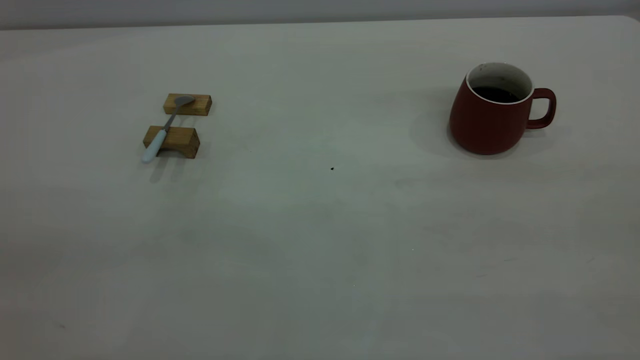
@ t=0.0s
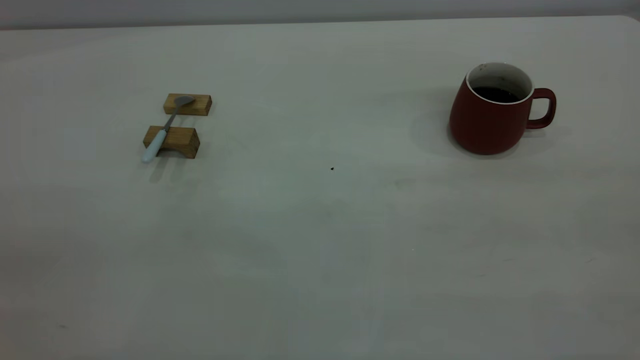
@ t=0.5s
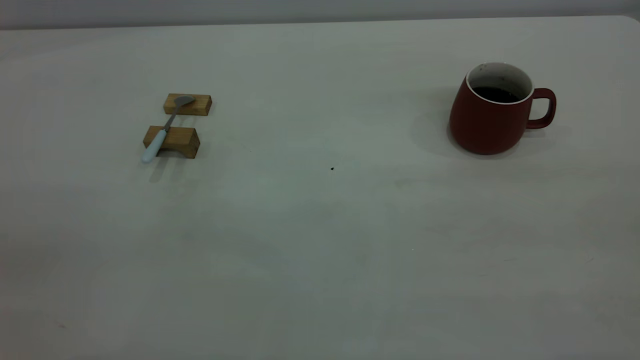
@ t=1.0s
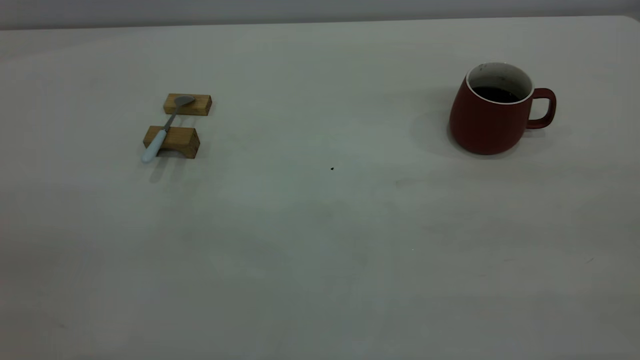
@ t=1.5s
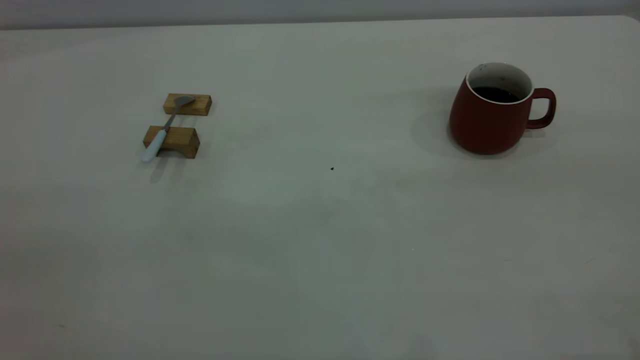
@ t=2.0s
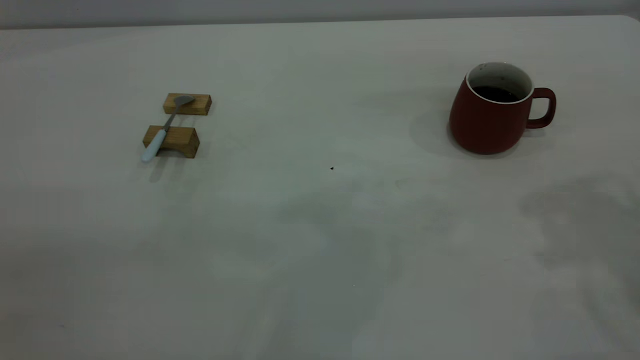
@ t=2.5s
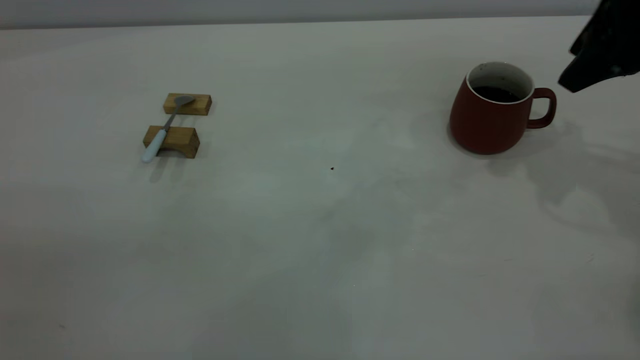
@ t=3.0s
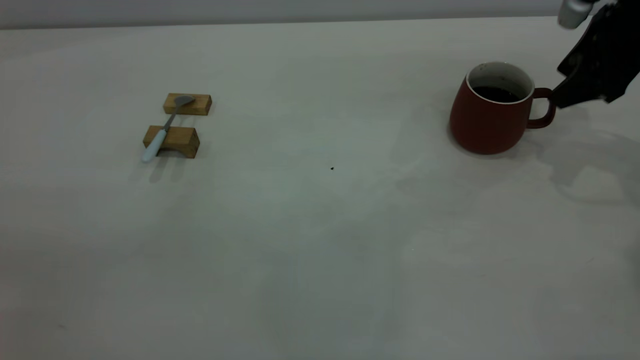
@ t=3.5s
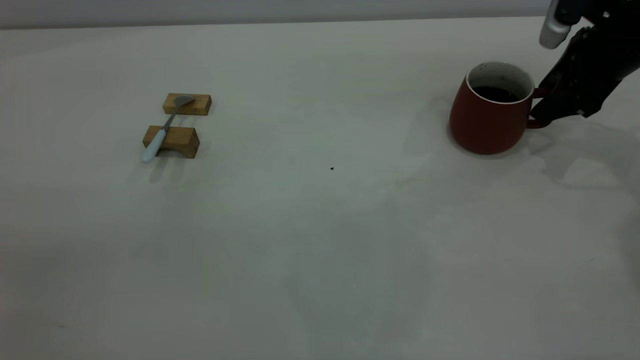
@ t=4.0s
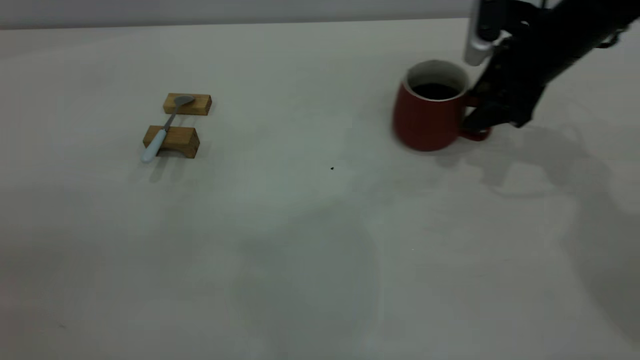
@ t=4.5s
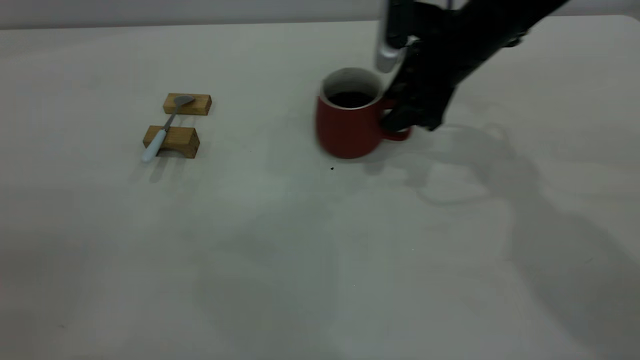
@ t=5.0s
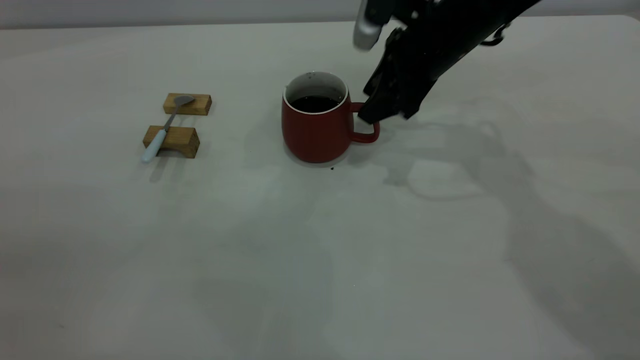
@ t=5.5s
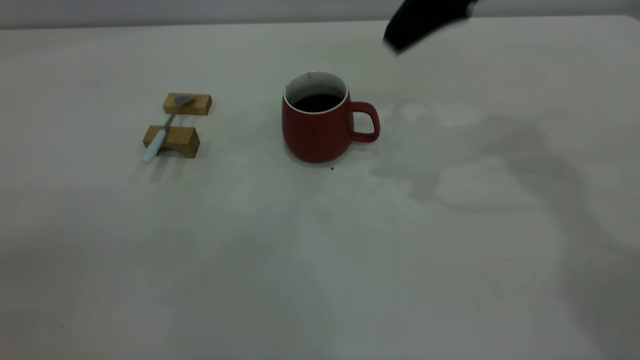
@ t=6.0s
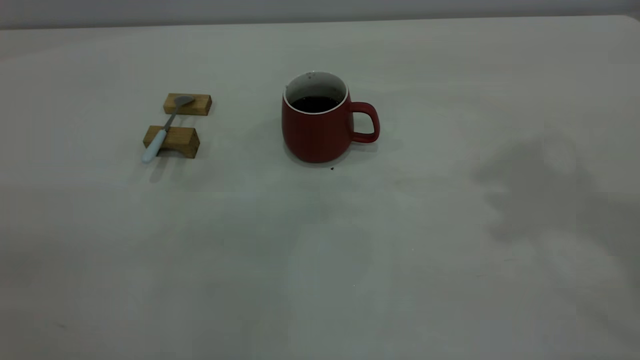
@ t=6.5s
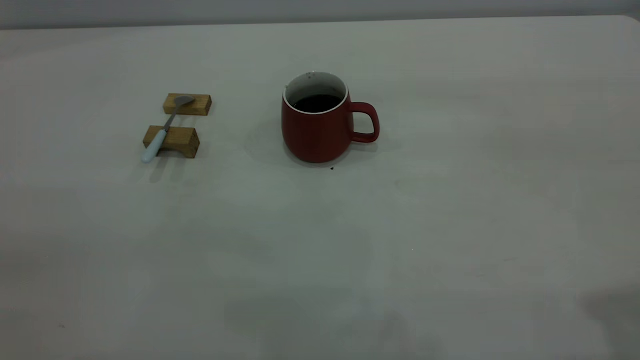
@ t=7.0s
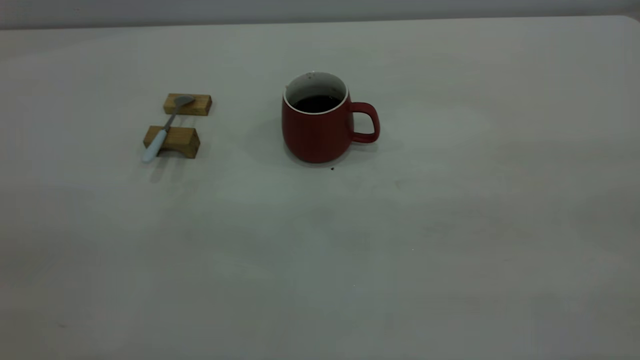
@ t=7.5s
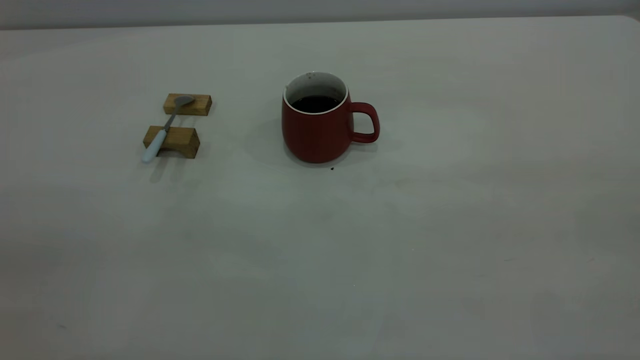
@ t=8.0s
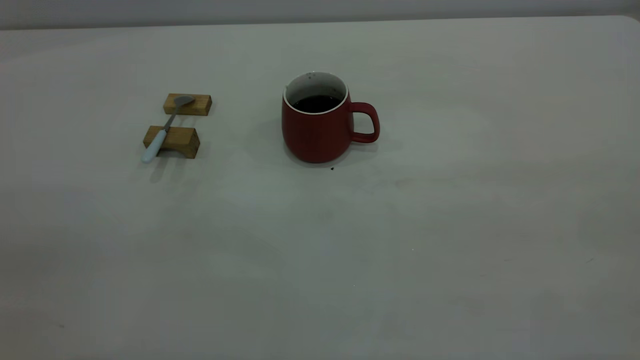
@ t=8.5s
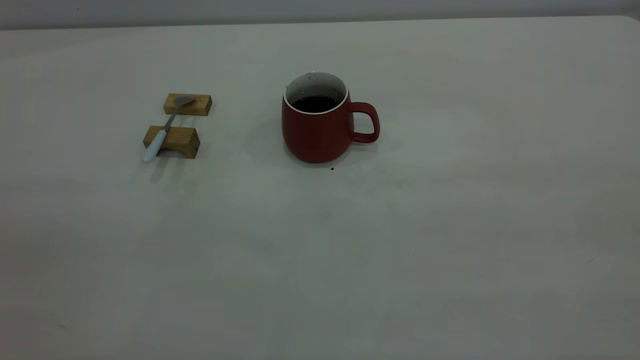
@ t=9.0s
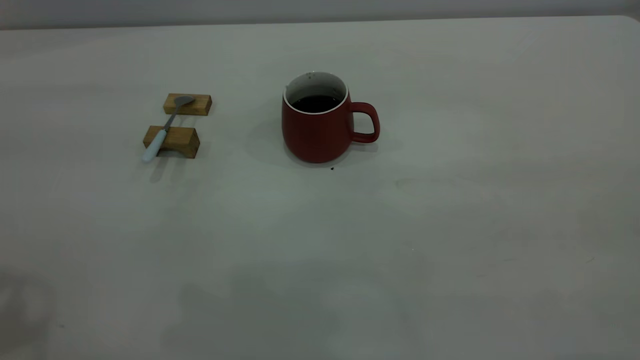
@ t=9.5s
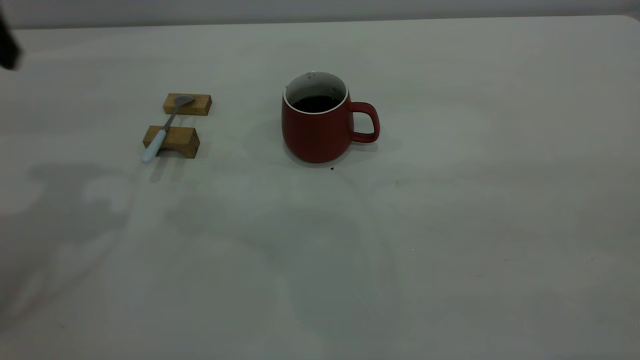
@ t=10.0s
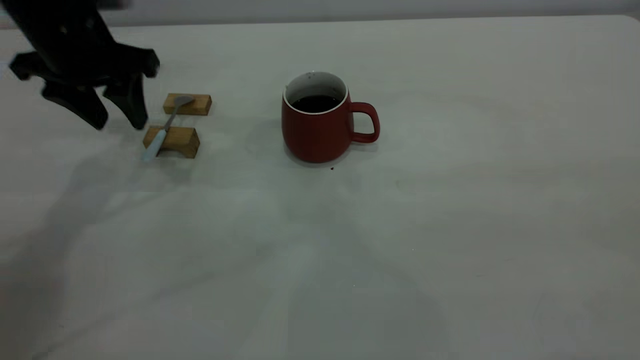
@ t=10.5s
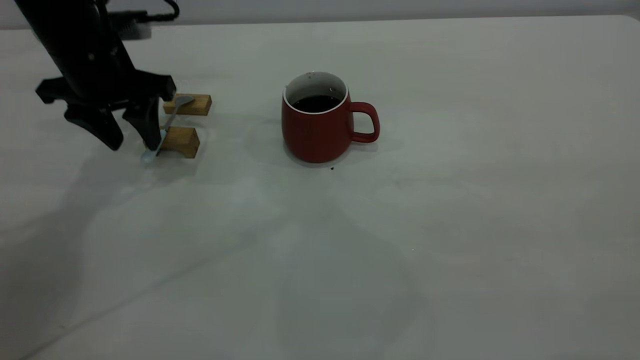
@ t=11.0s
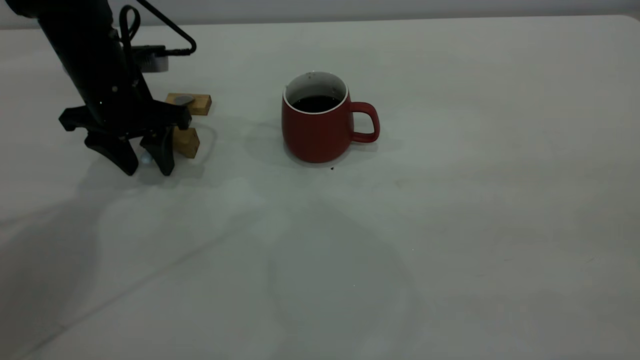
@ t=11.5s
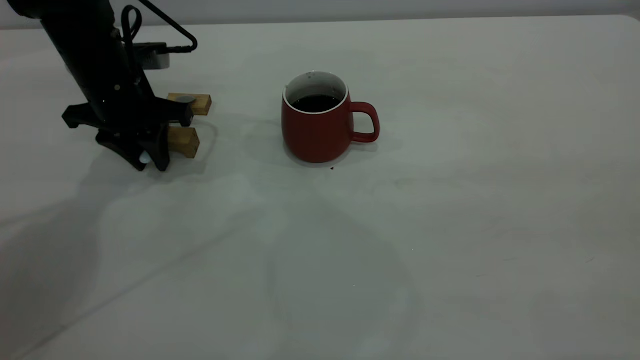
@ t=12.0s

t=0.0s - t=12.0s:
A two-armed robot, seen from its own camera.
Step, t=0.0s - t=5.5s: Move the cup with coffee to the center of view.
t=2.0s - t=4.0s: The right gripper shifts roughly 40 cm forward and downward.
t=4.0s - t=6.0s: The right gripper heads to the left and upward, covering some 20 cm, and closes up.
t=6.0s - t=8.0s: The right gripper travels backward by roughly 40 cm.
t=10.0s - t=12.0s: The left gripper shifts about 20 cm downward and forward, and closes.

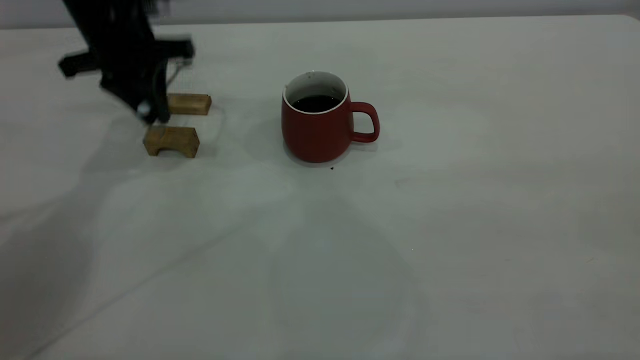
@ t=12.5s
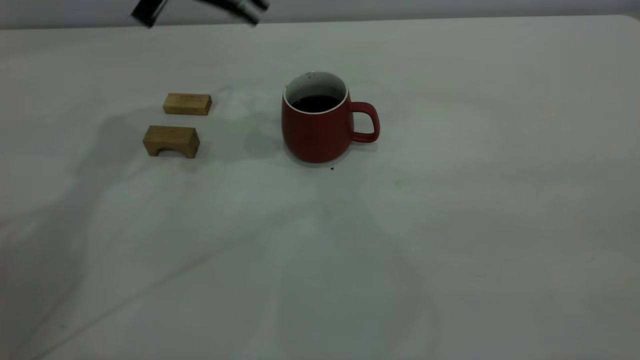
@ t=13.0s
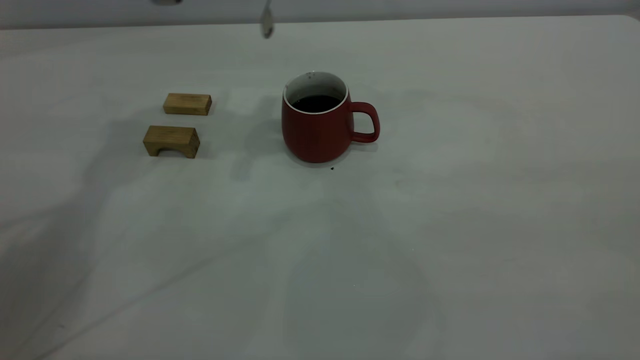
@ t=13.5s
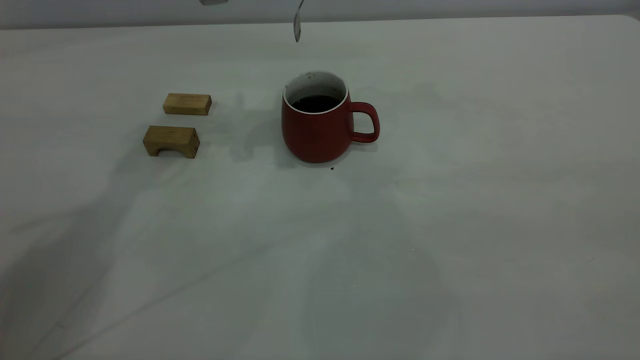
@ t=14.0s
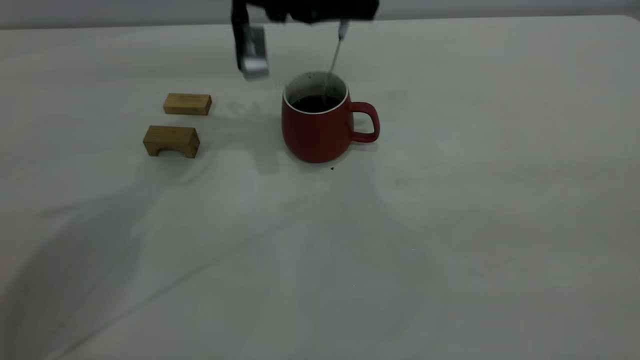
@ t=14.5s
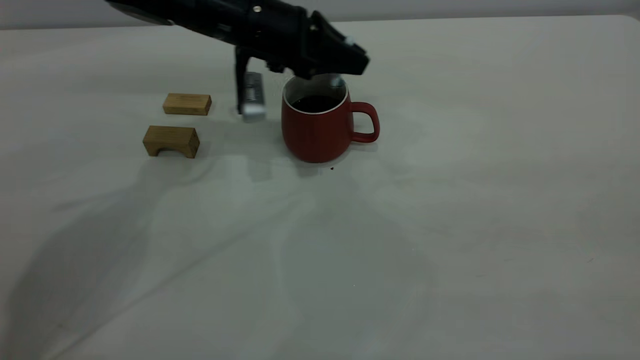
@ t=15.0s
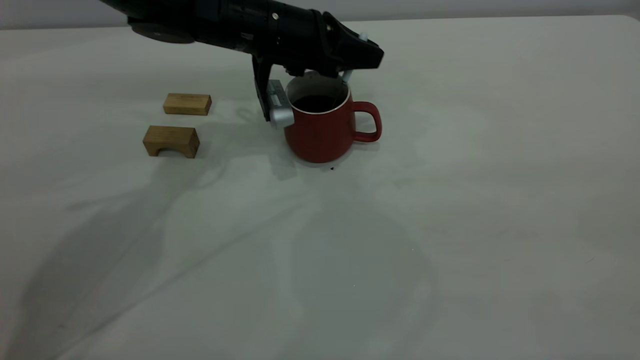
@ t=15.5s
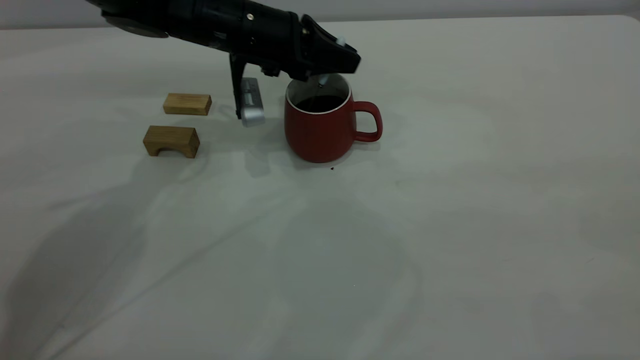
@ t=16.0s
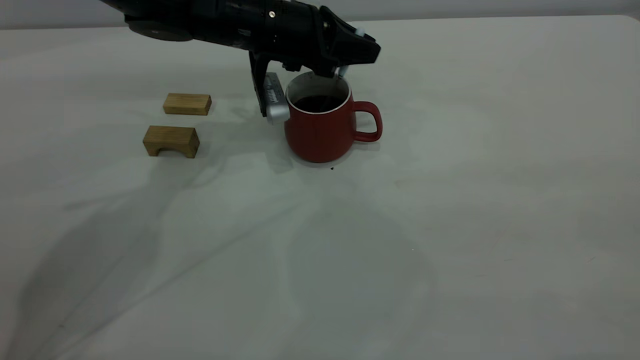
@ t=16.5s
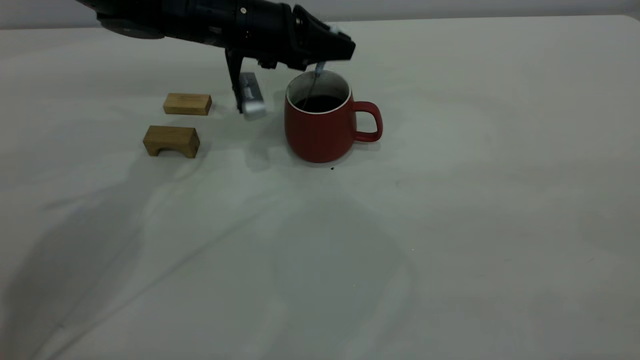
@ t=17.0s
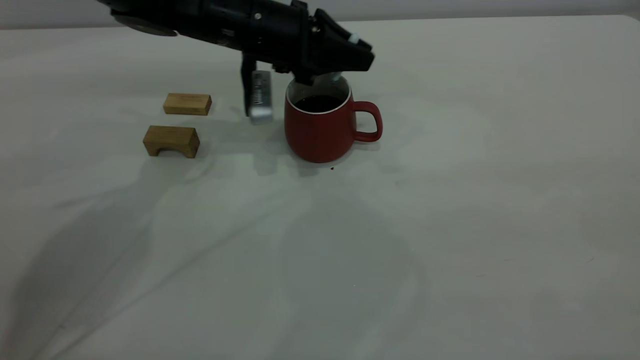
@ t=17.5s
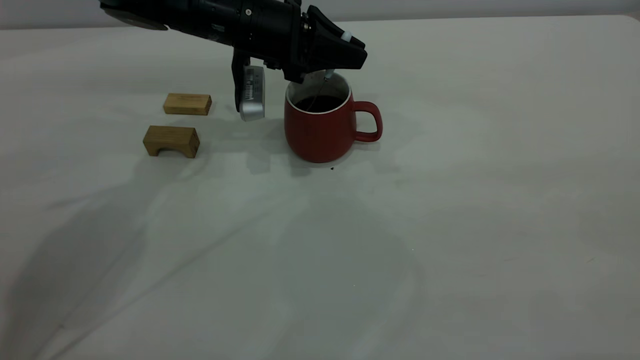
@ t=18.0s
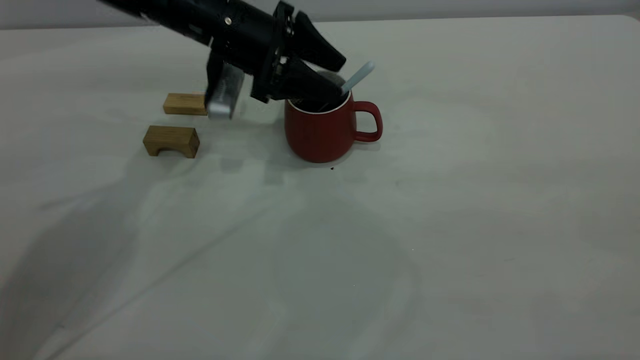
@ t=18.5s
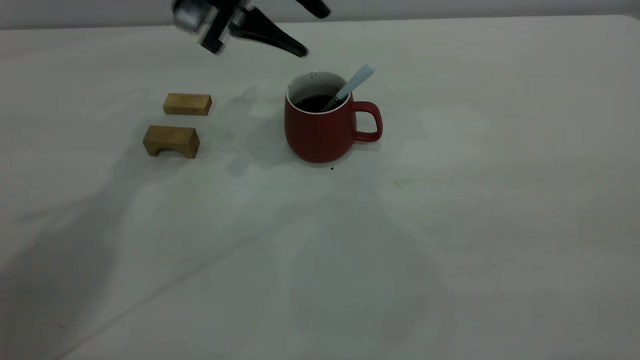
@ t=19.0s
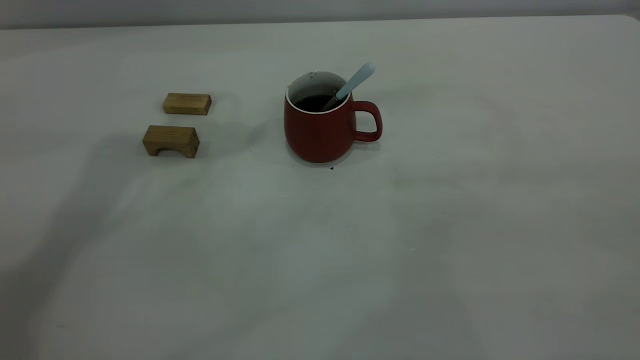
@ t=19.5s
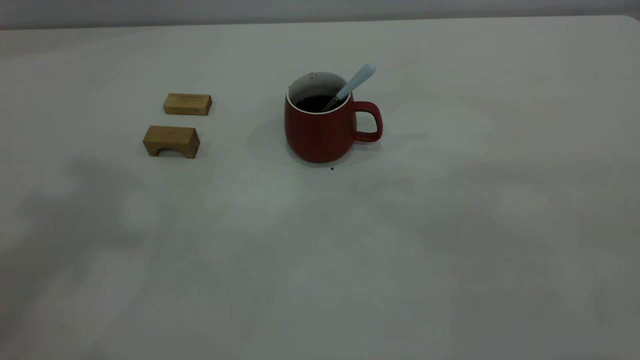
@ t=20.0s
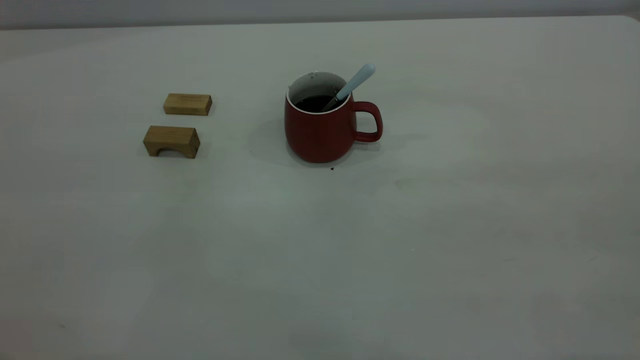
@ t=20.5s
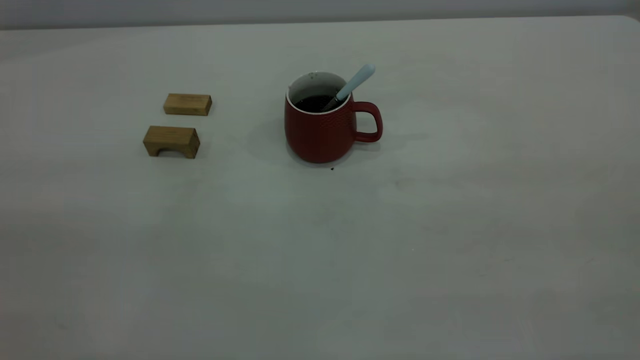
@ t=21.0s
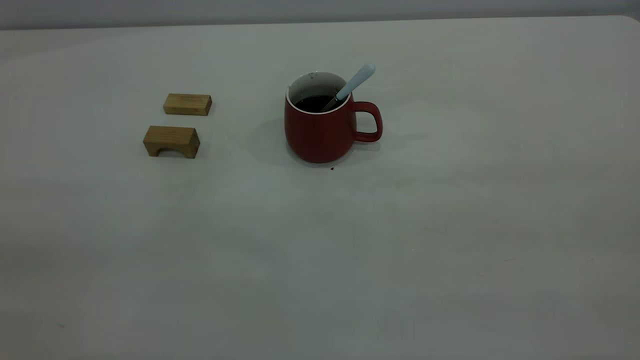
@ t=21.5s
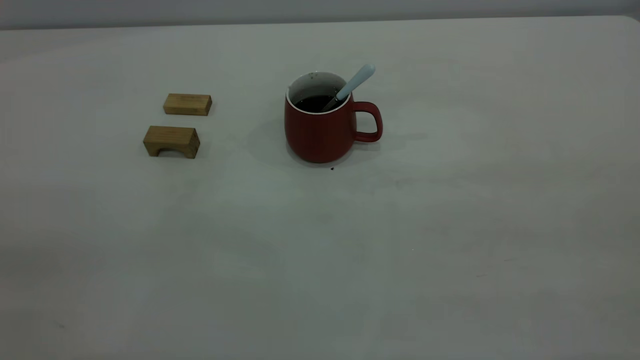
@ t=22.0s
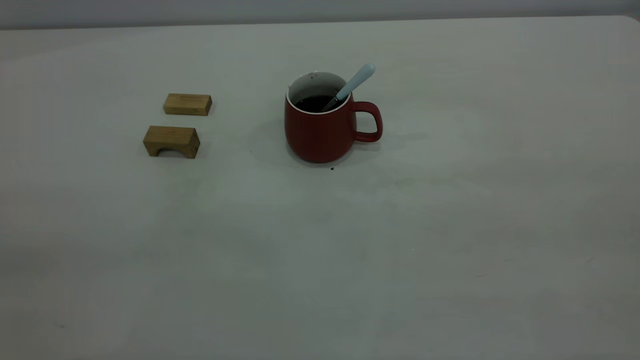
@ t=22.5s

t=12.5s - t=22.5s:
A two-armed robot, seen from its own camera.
Step, t=13.0s - t=18.5s: Stir the coffee in the cup.
t=12.5s - t=14.5s: The left gripper goes about 15 cm to the right.
t=14.5s - t=16.5s: The left gripper travels downward by about 5 cm.
t=16.5s - t=18.5s: The left gripper opens up.
t=18.5s - t=20.5s: The left gripper goes about 50 cm backward, upward and to the left, and closes.
